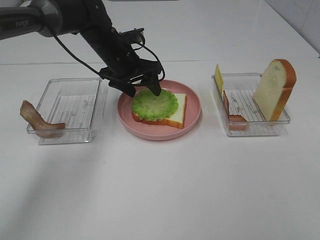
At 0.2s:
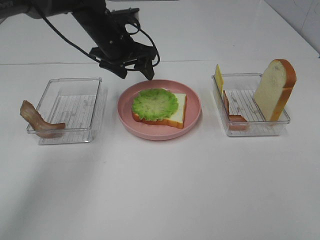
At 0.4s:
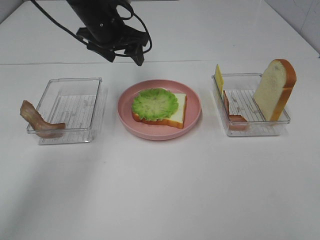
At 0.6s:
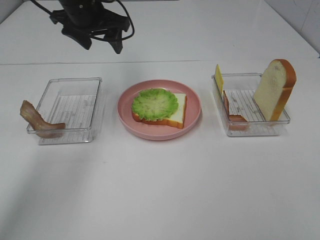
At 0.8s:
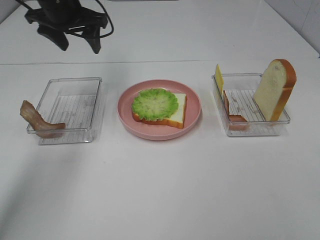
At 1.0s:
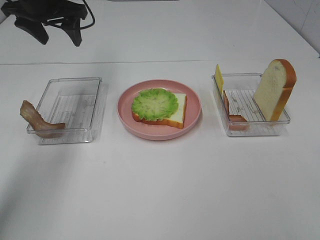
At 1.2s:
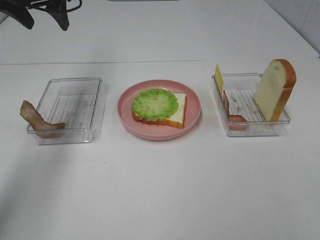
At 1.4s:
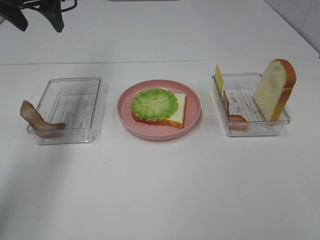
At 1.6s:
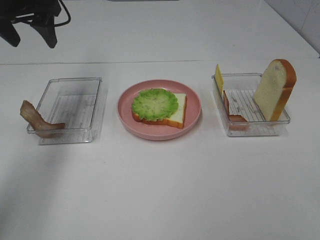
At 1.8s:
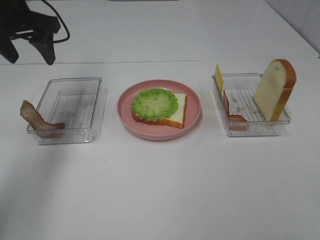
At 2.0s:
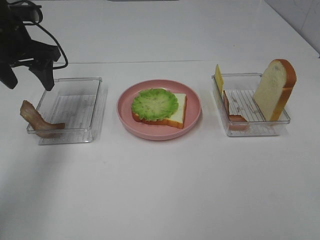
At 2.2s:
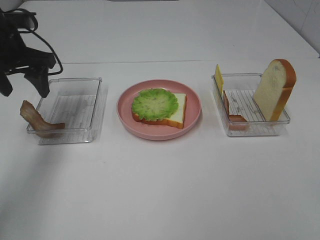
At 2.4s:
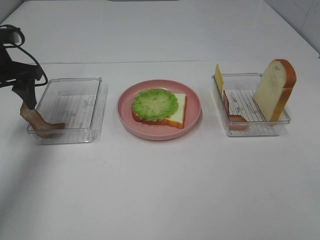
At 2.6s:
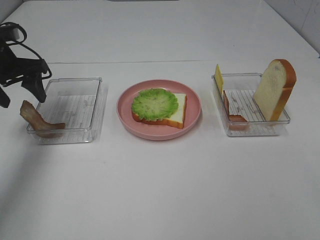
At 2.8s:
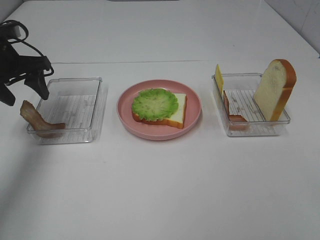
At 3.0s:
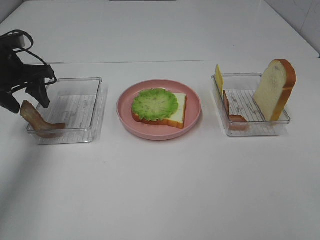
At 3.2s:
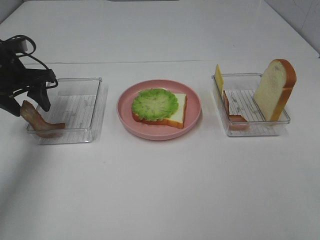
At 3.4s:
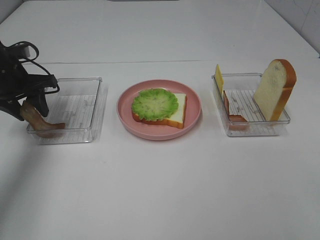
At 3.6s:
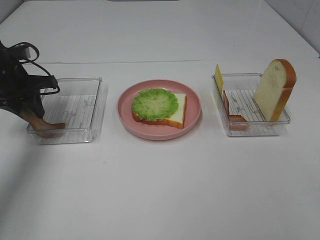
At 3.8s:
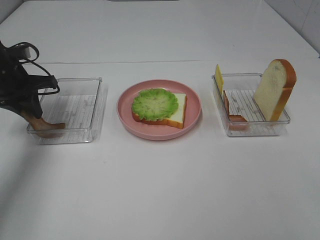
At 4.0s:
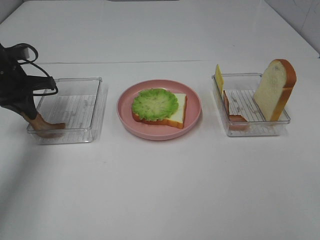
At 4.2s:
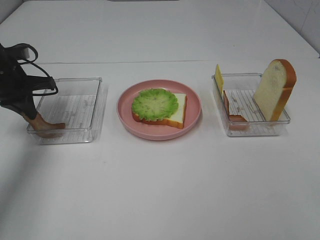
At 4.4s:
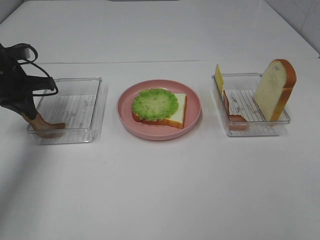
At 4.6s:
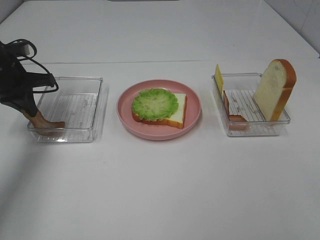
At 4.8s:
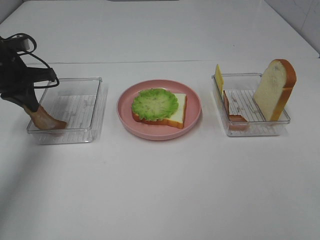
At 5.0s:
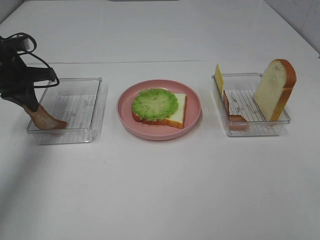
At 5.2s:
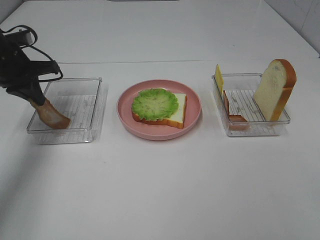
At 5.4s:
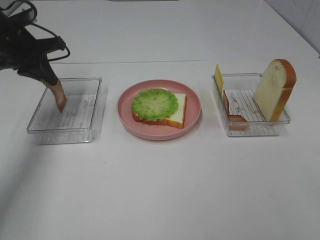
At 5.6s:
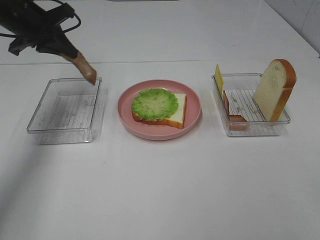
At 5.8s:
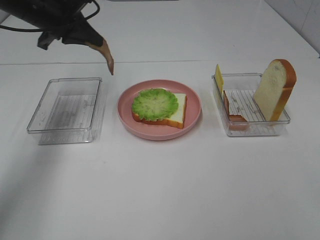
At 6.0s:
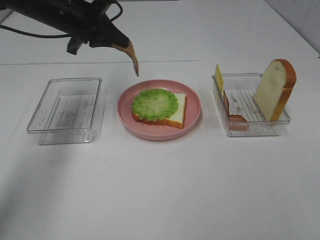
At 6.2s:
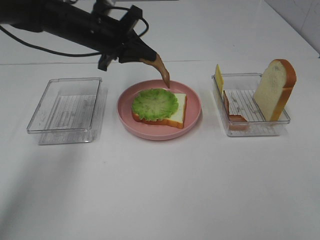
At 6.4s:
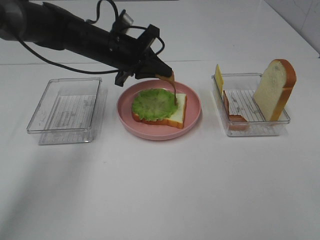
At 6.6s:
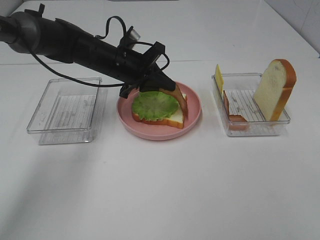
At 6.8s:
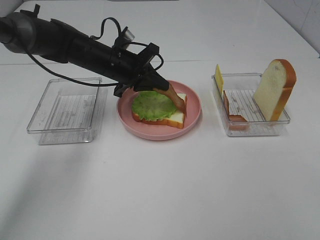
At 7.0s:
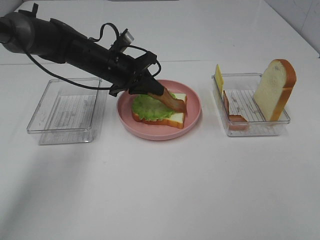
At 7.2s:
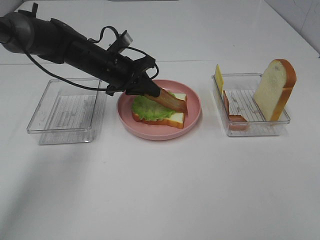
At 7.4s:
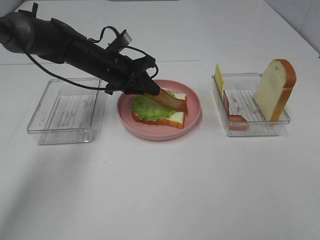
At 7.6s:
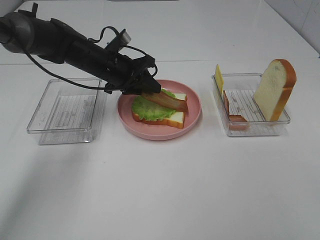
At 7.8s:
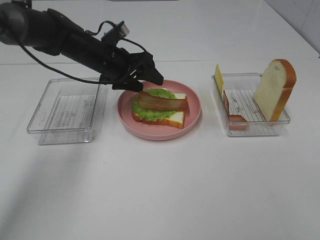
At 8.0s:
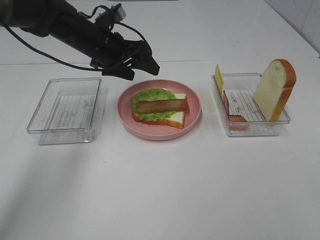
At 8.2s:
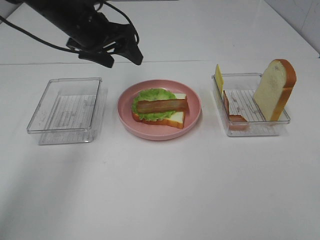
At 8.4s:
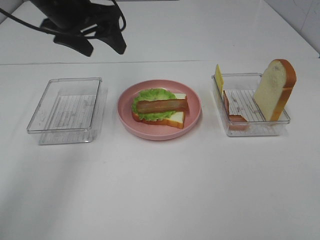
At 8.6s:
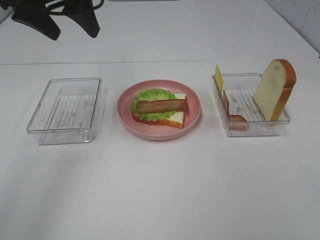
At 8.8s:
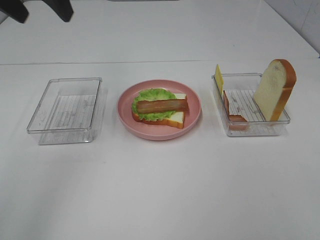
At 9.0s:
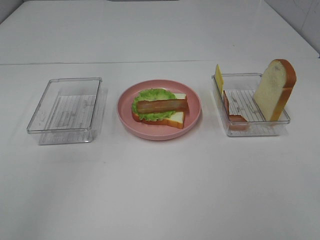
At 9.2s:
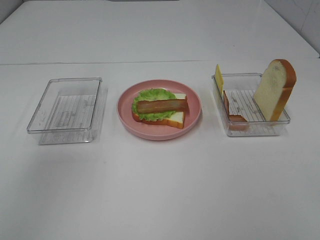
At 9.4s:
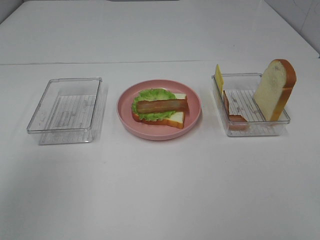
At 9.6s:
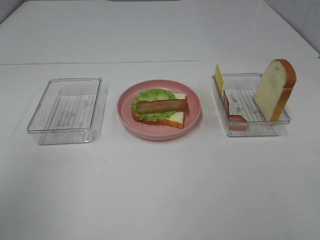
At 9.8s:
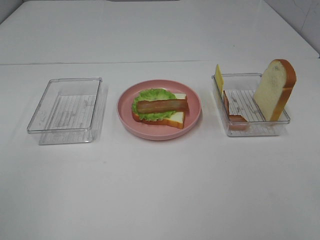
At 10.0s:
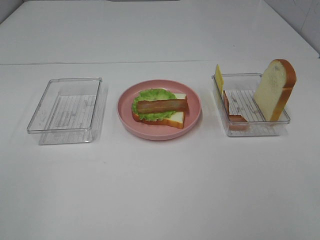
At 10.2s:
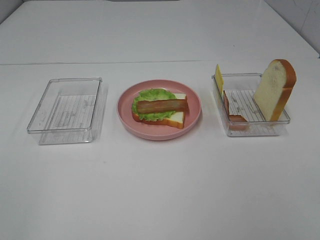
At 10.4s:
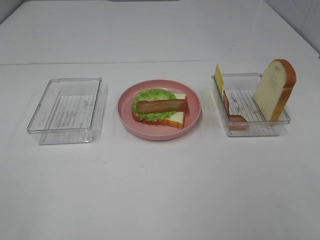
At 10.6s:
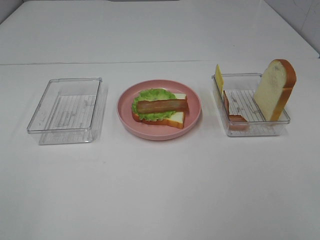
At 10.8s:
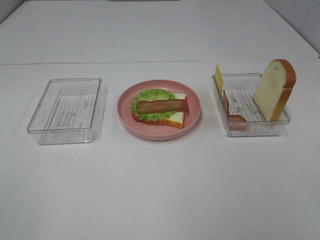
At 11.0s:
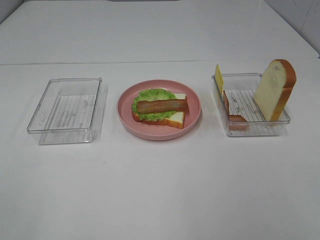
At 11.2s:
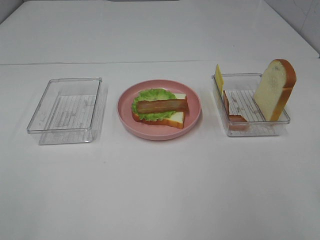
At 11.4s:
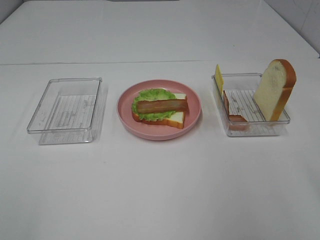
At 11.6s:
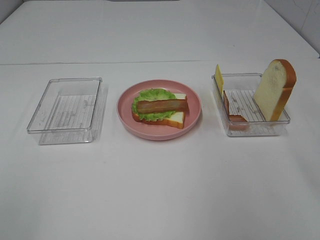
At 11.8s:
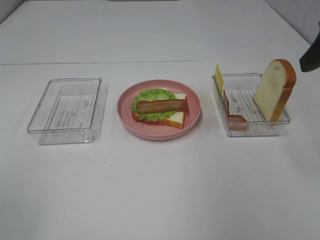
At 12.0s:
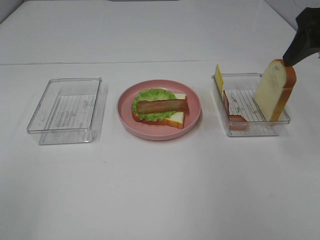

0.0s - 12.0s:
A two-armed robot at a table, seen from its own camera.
Task of the whole recording: Make sandwiches.
Step, 0.2s - 4.0s: Left hand:grab the bacon.
Step, 4.2s - 8.0s: Left hand:place bacon on lettuce slice.
0.0s - 1.6s: The left gripper goes some 20 cm to the left and upward.
1.6s - 3.0s: The left gripper heads downward, covering about 10 cm.
3.0s - 4.4s: The left gripper closes.
4.4s - 6.0s: The left gripper is displaced to the right and upward by some 15 cm.
6.0s - 7.6s: The left gripper is displaced downward and to the right by some 10 cm, and opens.
7.6s - 9.0s: The left gripper travels upward and backward by about 30 cm, and opens.
9.0s - 10.4s: The left gripper is displaced backward by approximately 30 cm.
10.4s - 12.0s: The right gripper goes some 30 cm forward.

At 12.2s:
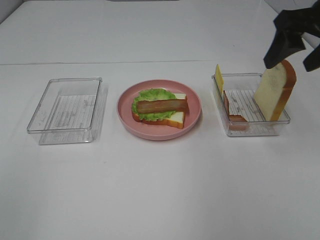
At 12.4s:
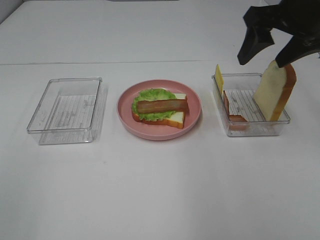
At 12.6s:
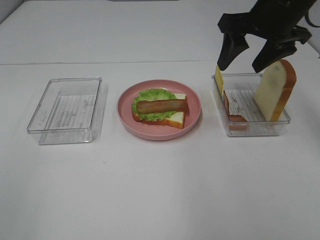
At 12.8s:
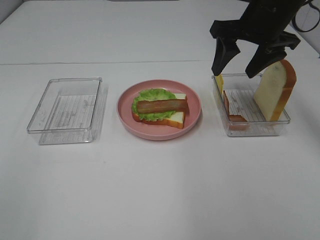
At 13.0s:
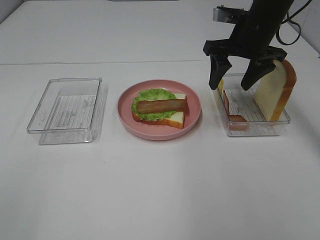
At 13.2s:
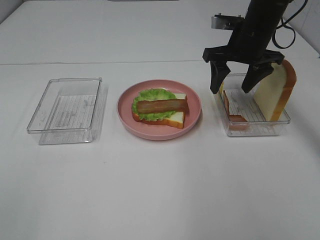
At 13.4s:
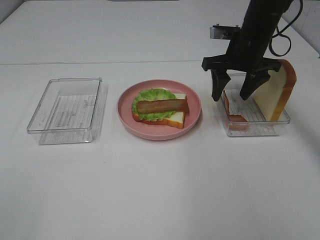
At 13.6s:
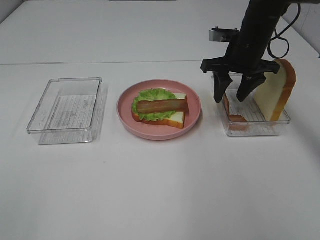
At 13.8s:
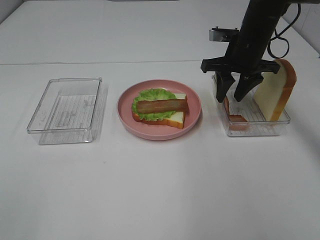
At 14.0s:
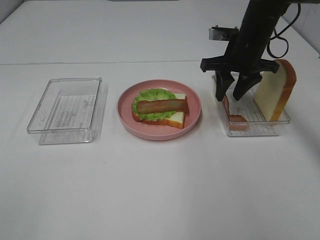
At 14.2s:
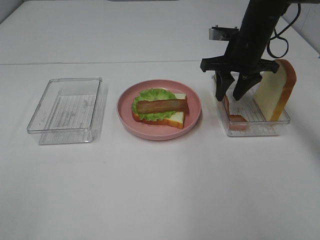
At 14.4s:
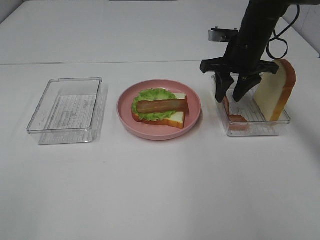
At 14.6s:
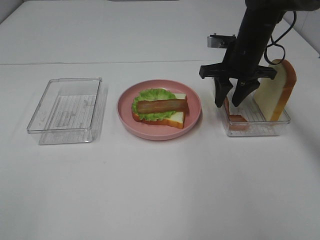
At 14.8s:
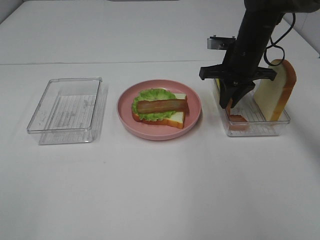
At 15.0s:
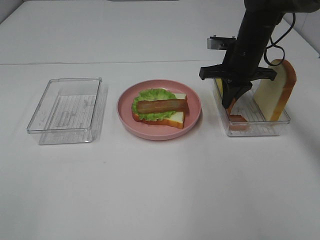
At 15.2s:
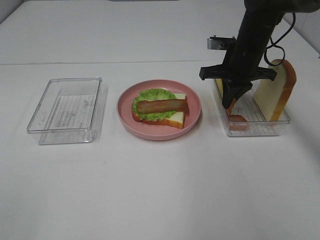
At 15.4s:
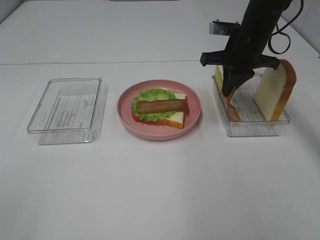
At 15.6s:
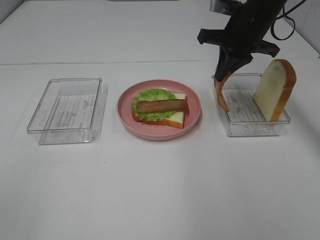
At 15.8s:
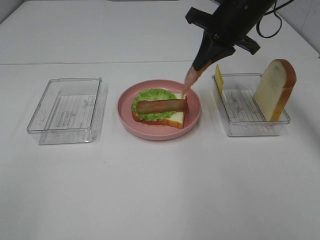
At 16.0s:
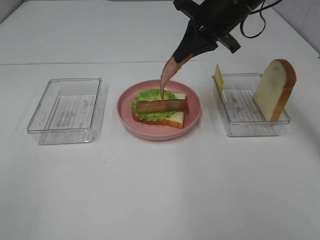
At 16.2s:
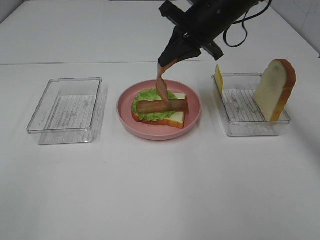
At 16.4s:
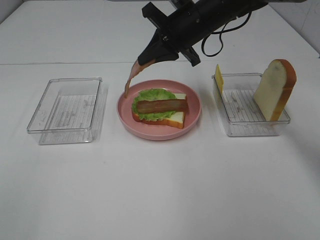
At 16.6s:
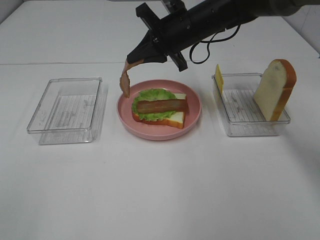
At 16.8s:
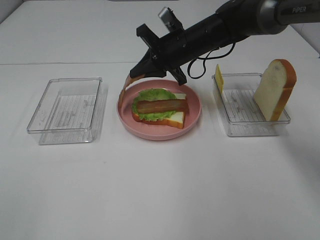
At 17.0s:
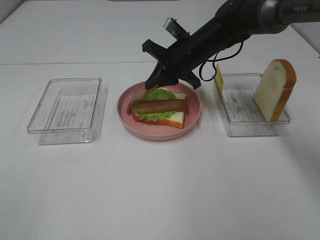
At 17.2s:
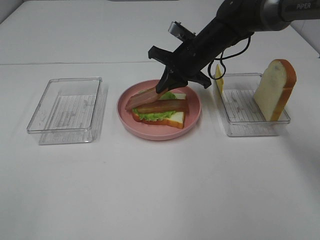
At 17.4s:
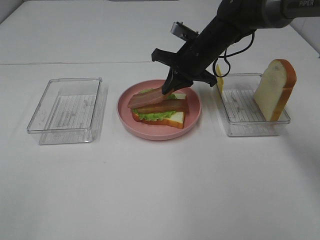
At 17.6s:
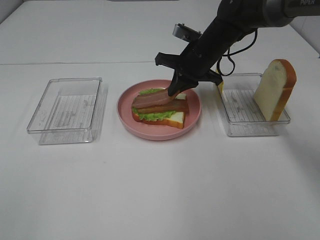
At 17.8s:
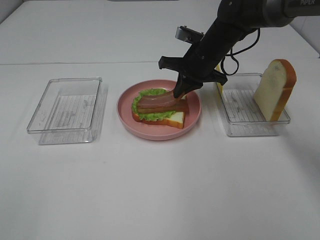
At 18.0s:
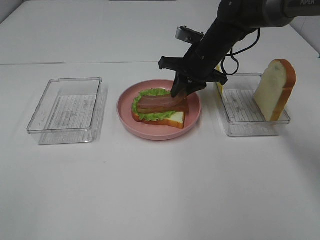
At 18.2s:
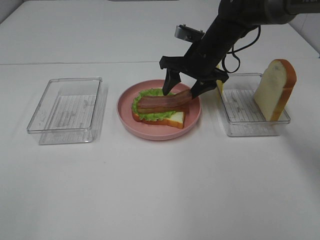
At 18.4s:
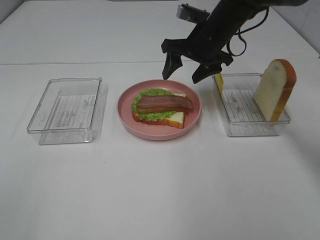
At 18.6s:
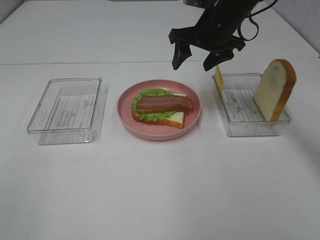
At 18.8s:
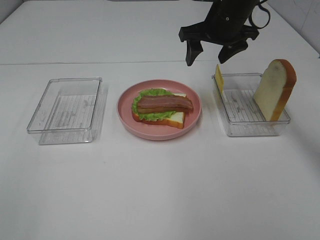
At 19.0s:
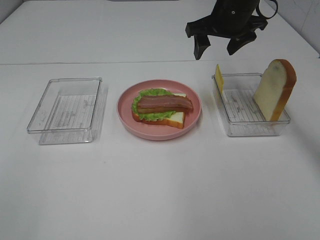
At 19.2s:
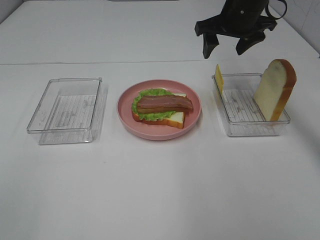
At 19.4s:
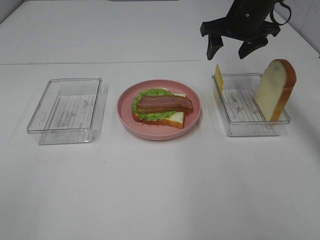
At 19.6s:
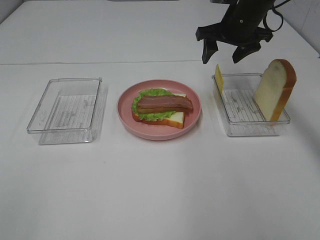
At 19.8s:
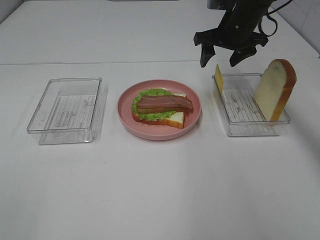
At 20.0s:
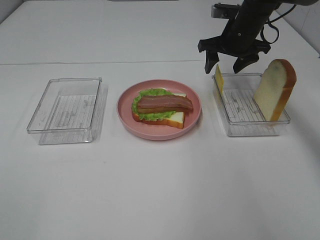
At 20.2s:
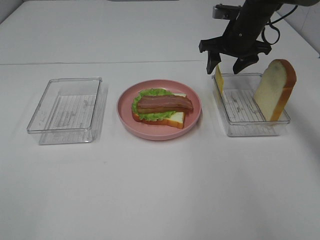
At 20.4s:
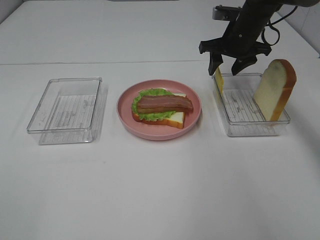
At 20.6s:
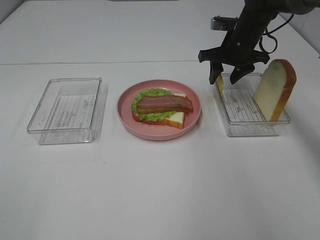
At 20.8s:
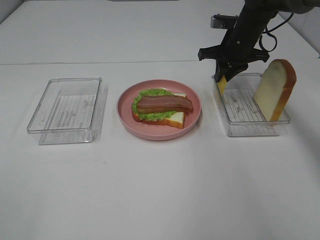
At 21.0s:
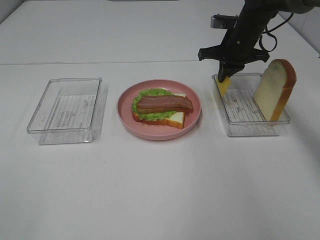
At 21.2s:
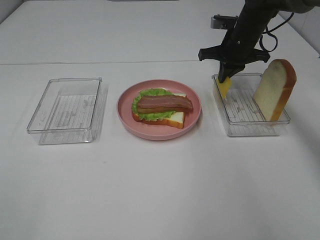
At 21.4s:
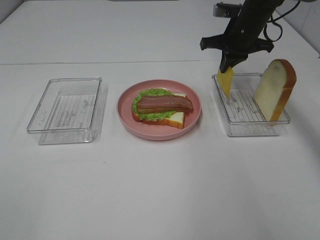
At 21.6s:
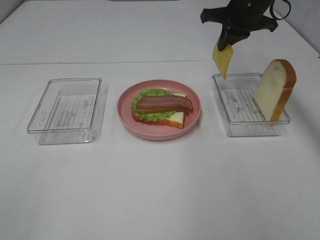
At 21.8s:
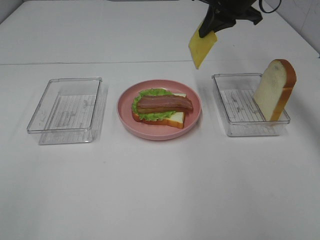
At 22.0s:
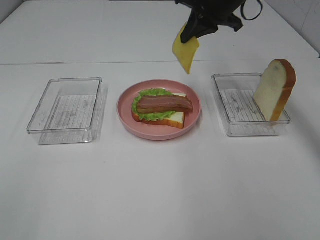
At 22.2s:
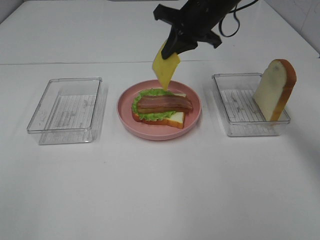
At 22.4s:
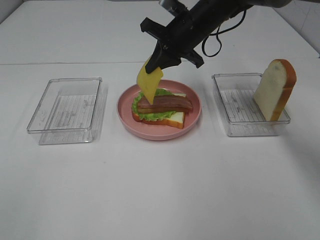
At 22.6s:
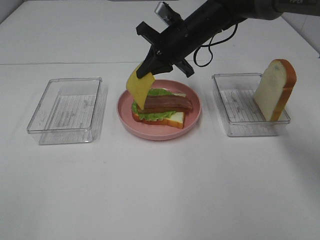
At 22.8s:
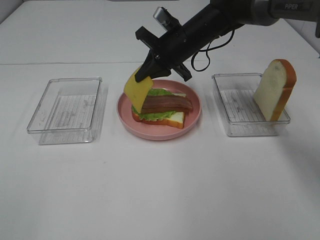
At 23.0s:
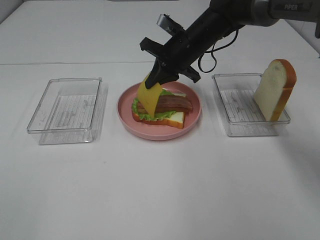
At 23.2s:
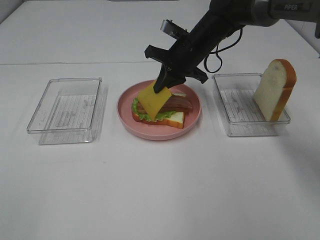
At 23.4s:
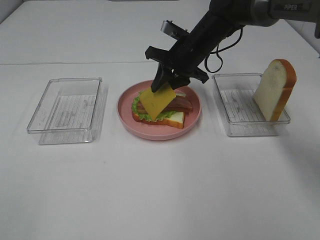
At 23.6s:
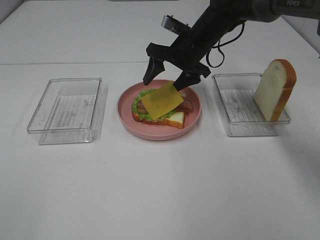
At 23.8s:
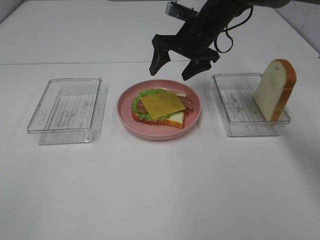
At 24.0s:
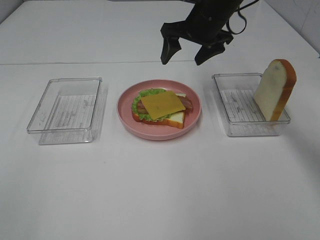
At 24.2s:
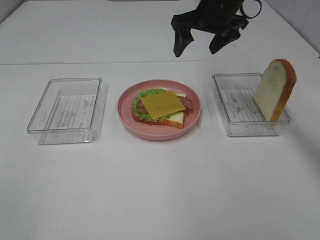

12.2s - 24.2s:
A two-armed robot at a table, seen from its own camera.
Task of the whole recording: Make sandwiches.
Step, 12.2s - 15.0s: Right hand:grab the bacon.
Step, 15.2s - 18.8s: Right hand:place bacon on bacon.
Step, 19.0s - 21.0s: Right hand:grab the cheese slice.
Step, 21.2s - 23.8s: Right hand:place the cheese slice on top of the bacon.
12.2s - 13.8s: The right gripper is displaced downward, forward and to the left by approximately 20 cm.
13.8s - 15.2s: The right gripper closes.
15.2s - 16.6s: The right gripper goes approximately 10 cm to the left.
16.6s - 18.2s: The right gripper moves roughly 5 cm, and opens up.
18.2s - 19.8s: The right gripper moves to the right, approximately 5 cm.
19.8s - 21.2s: The right gripper closes.
21.2s - 22.6s: The right gripper goes some 10 cm to the left.
22.6s - 24.2s: The right gripper goes roughly 10 cm upward and to the right, and opens up.
